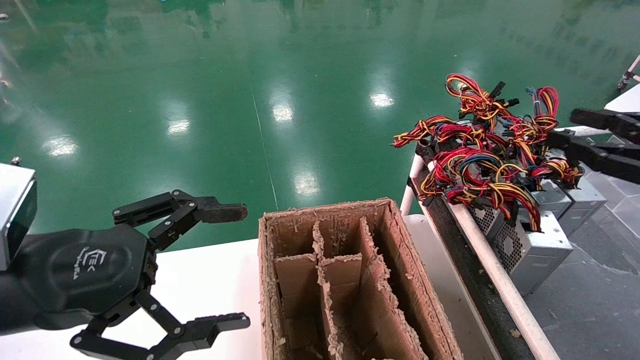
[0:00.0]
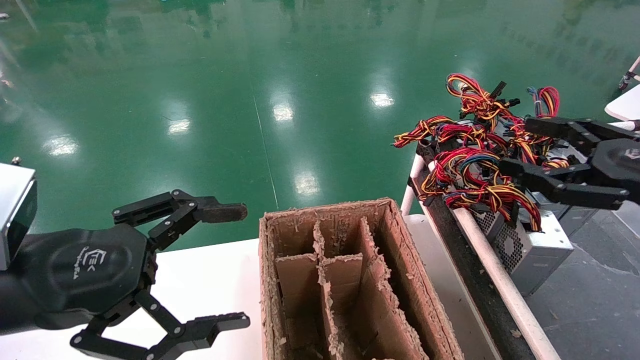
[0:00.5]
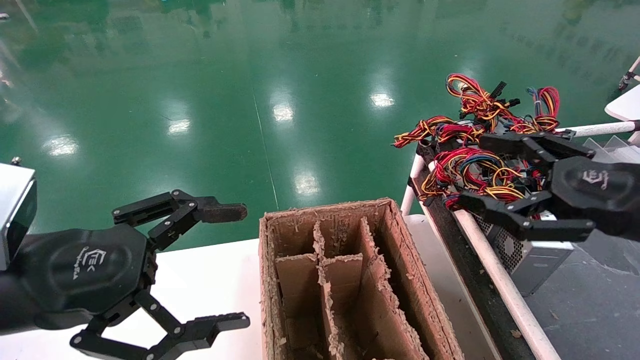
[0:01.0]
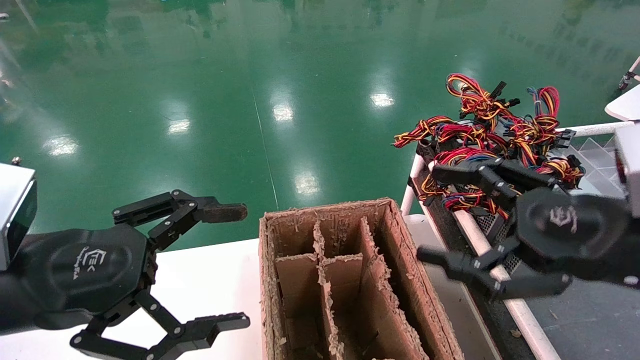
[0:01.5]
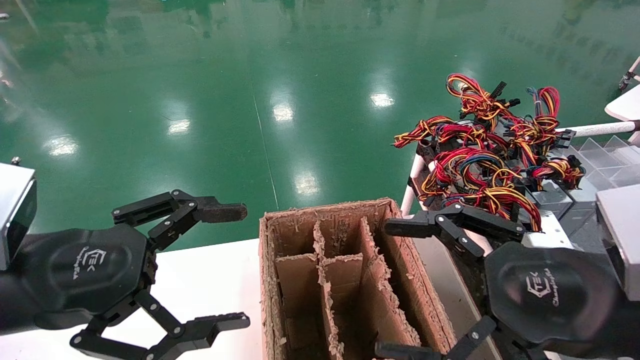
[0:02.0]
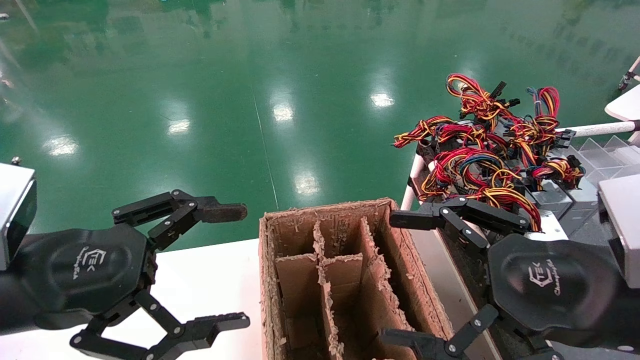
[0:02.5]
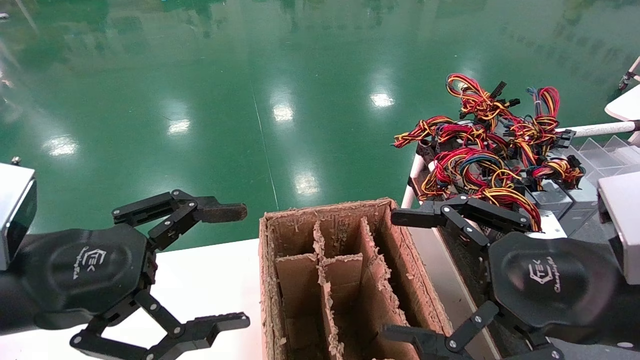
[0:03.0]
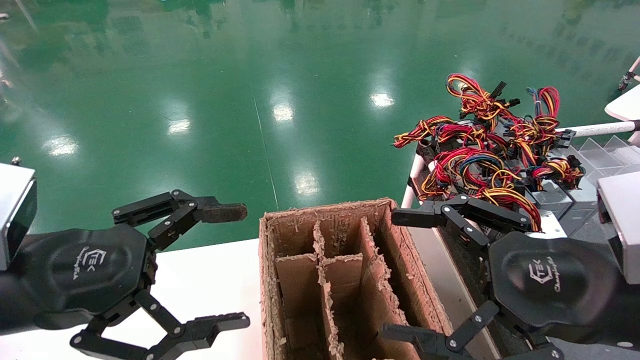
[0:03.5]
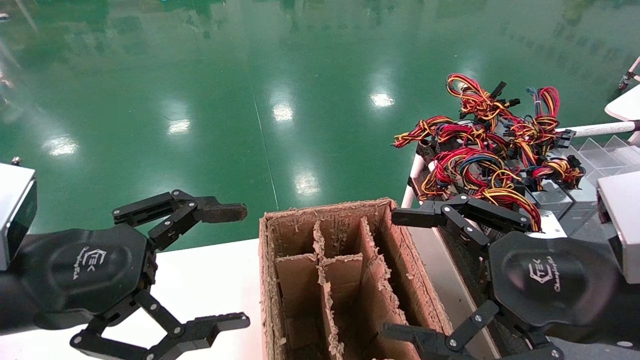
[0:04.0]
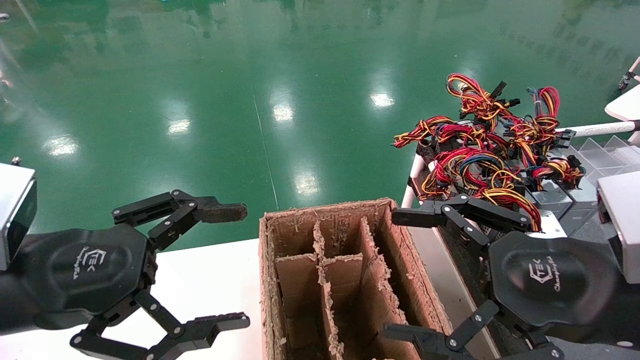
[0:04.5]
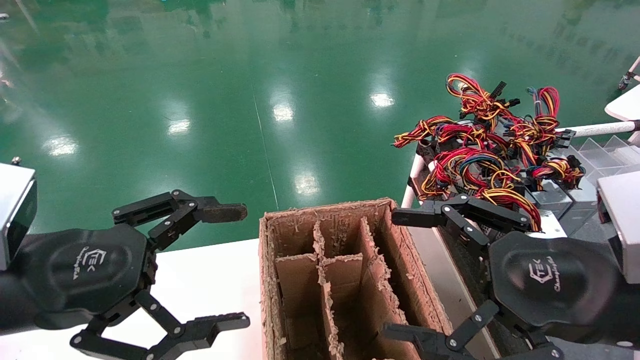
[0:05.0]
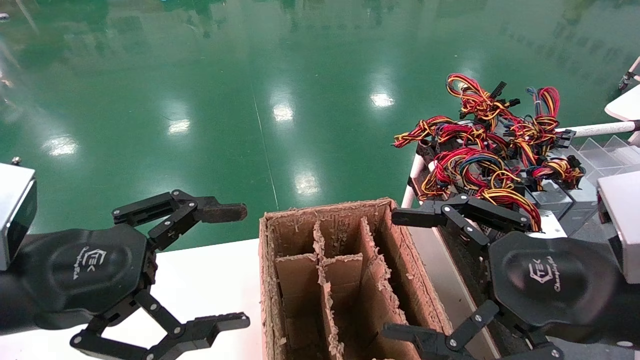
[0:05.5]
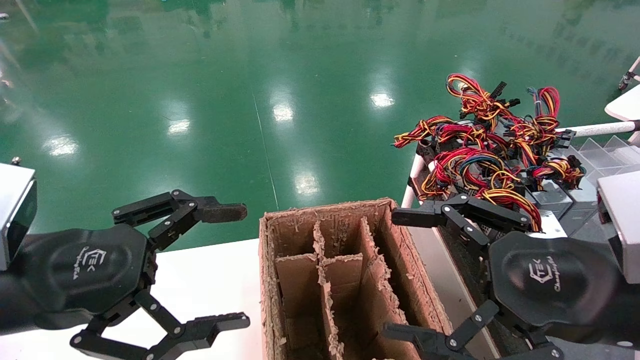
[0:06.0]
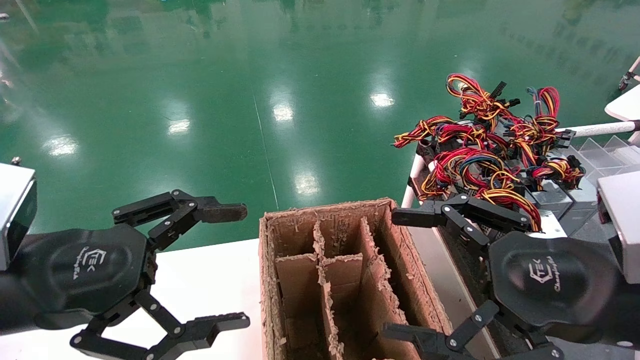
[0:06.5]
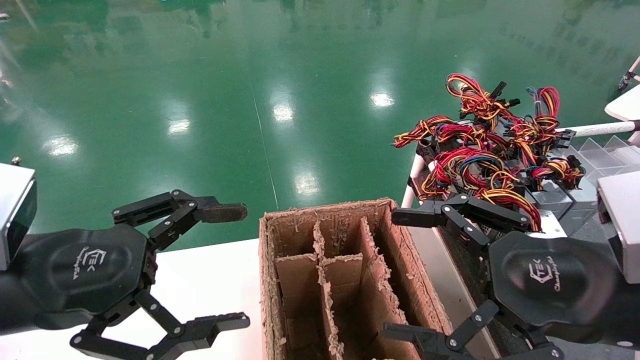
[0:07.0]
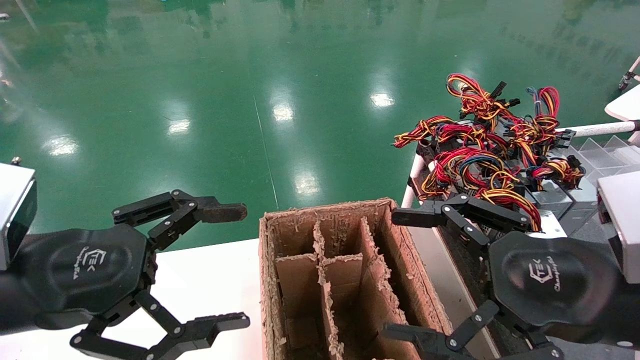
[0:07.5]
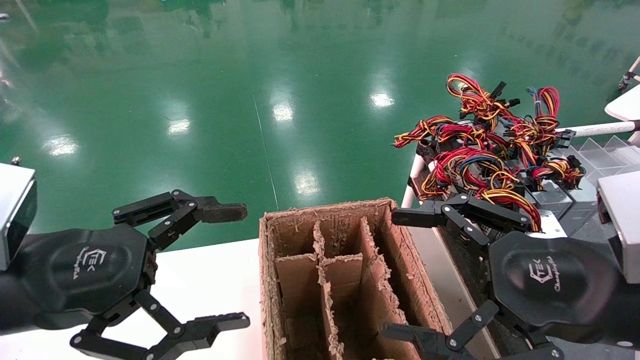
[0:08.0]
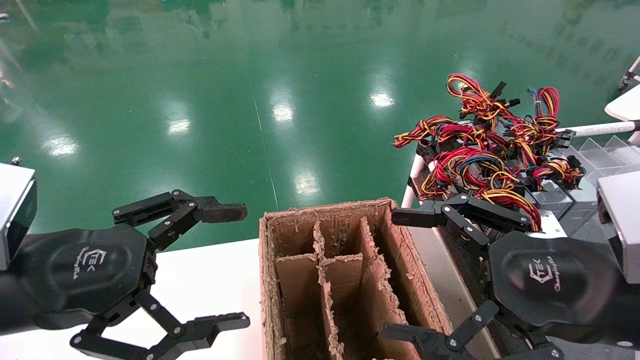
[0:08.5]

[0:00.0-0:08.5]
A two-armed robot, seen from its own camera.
0:00.0 to 0:02.0: The right gripper heads to the left and backward, covering some 20 cm, and opens its fingers.
0:02.0 to 0:08.5: Both grippers stay about where they are.
